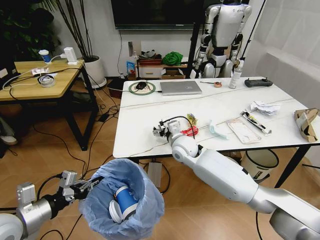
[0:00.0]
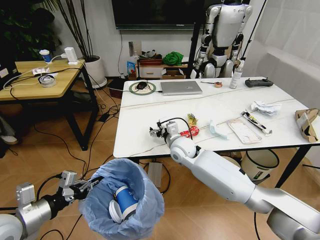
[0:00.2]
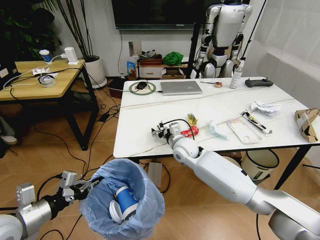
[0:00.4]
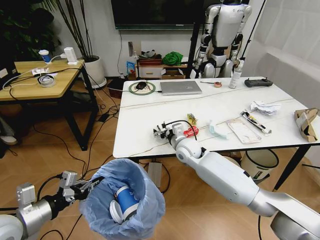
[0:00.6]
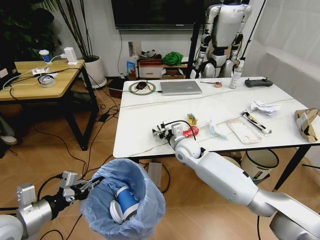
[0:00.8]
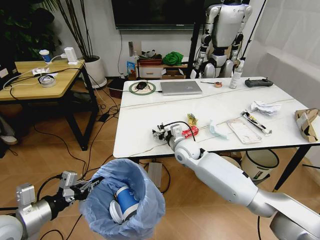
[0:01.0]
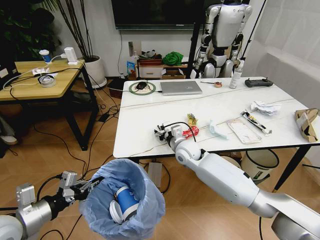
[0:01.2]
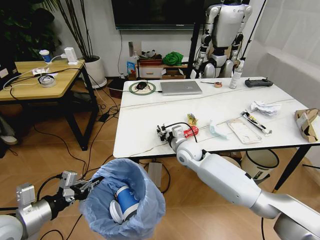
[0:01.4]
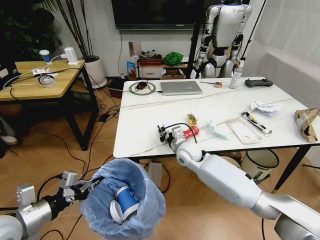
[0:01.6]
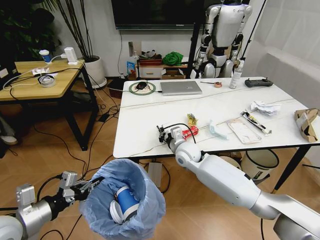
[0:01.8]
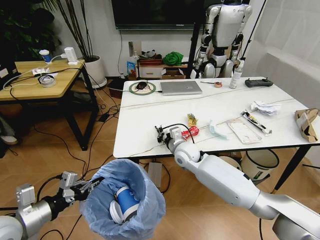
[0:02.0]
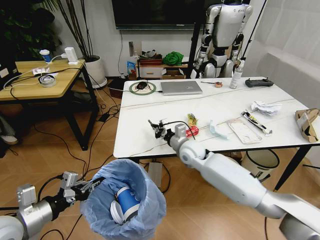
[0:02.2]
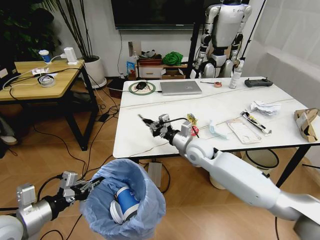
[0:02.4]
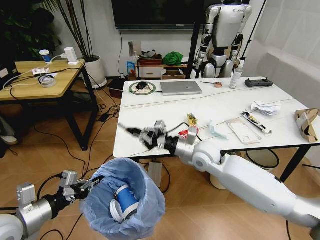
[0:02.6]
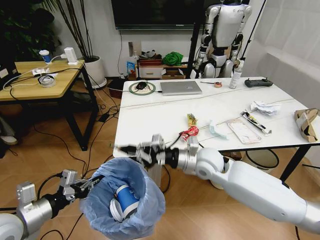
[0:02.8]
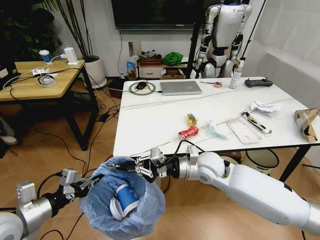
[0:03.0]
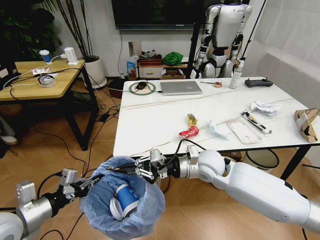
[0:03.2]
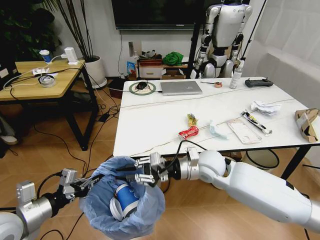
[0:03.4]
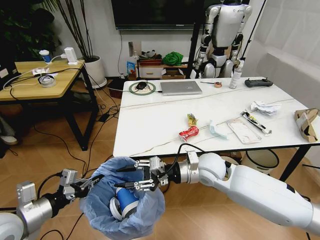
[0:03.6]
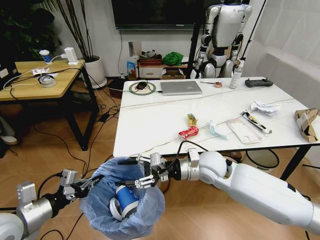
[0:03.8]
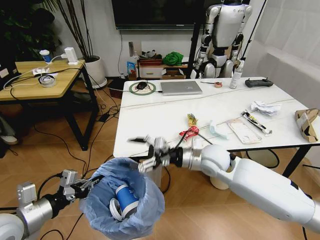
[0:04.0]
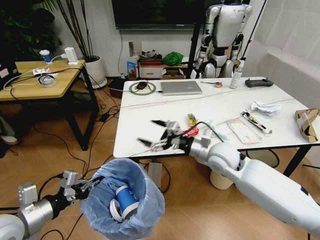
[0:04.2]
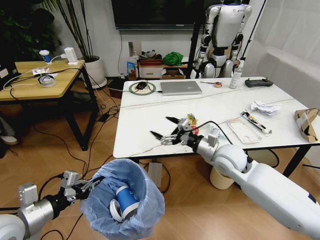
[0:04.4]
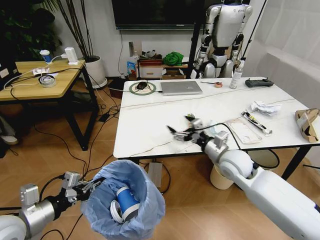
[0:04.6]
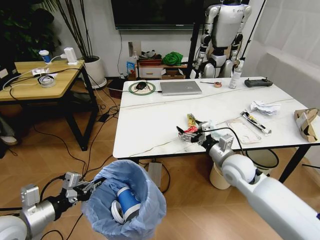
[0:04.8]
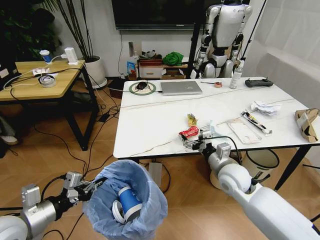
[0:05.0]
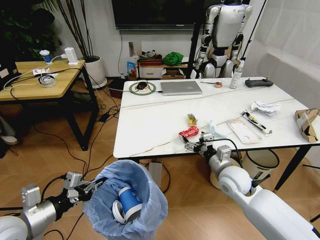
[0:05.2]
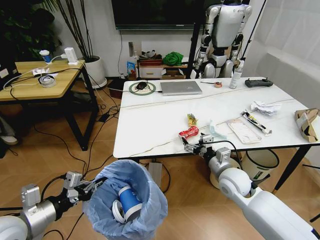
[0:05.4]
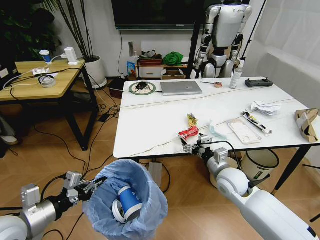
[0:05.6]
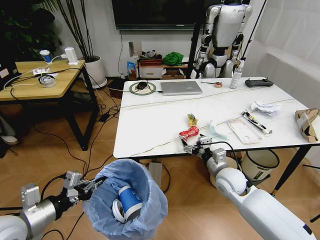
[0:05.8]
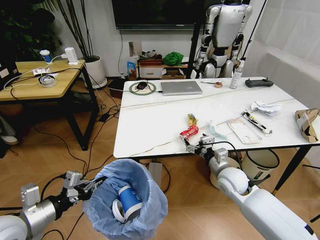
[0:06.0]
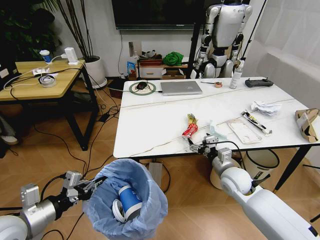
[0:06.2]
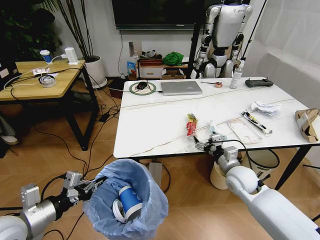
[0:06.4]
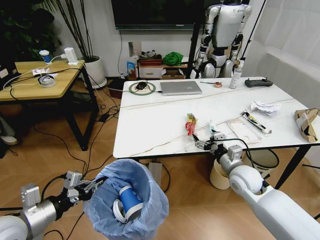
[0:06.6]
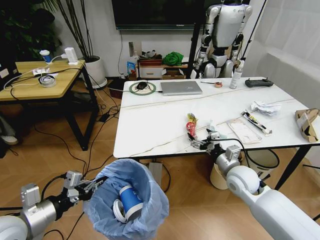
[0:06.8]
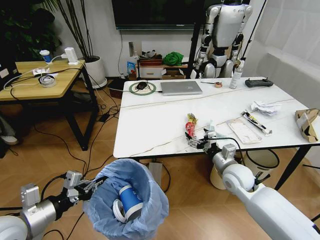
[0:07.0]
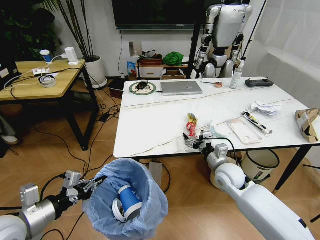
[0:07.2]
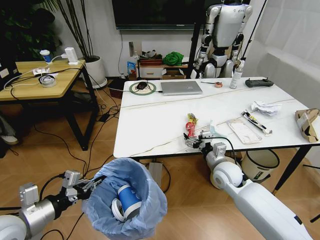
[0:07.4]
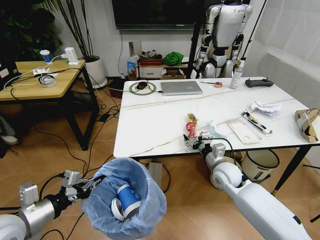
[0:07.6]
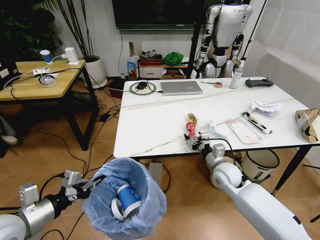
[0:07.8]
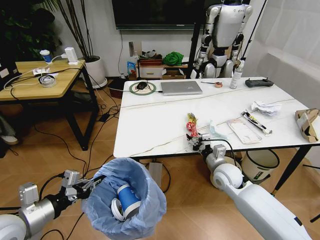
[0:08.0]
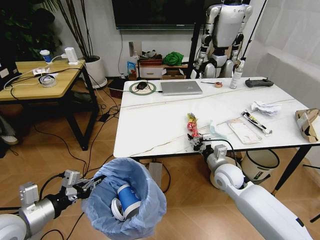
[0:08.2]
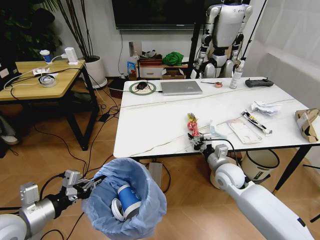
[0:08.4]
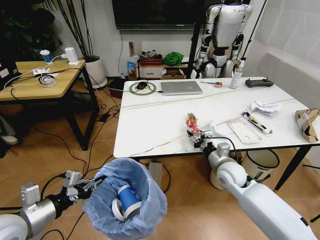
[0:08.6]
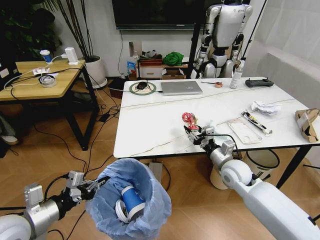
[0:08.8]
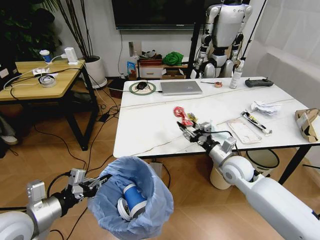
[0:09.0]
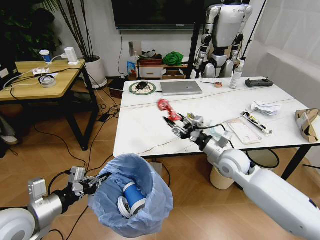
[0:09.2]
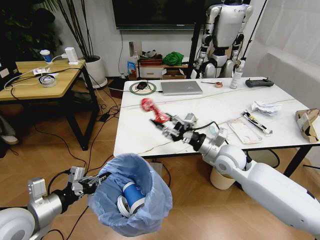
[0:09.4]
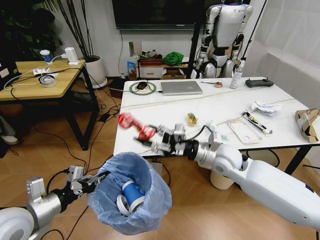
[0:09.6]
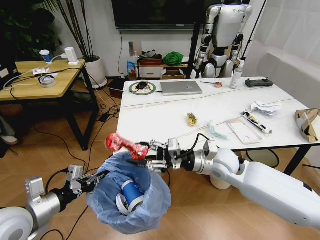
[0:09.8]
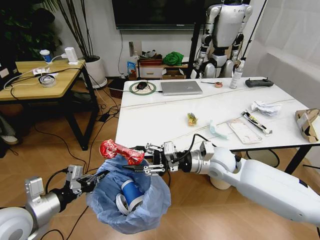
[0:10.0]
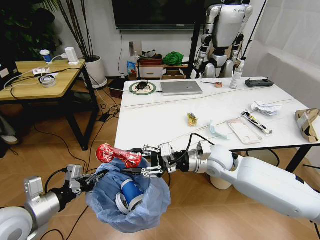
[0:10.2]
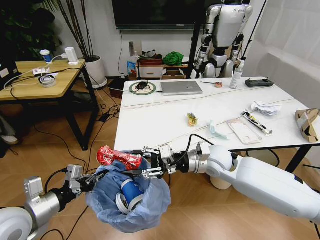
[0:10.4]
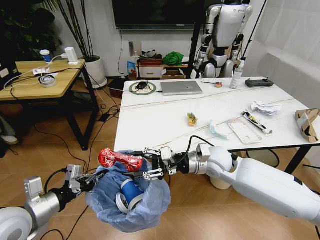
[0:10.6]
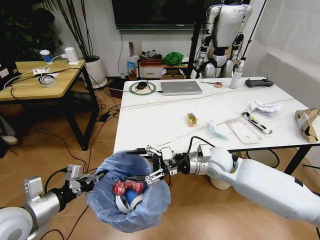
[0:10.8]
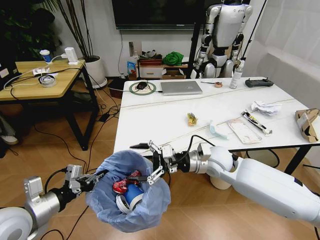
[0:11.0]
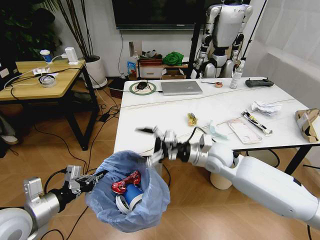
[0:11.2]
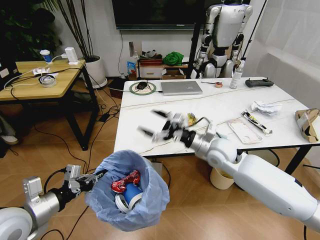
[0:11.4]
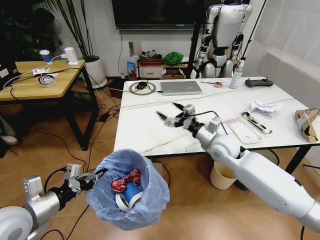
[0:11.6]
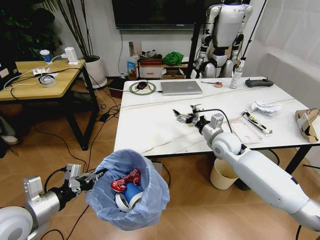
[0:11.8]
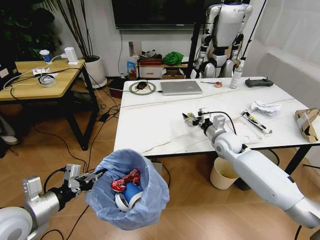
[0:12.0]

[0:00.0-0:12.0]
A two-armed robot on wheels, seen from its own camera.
Task of the whole recording: Pick up the trash bin and place the trash from the table into it.
0:00.0 to 0:01.6: The right gripper closes.
0:01.6 to 0:03.0: The right gripper is displaced backward by about 10 cm.
0:03.0 to 0:04.4: The right gripper heads to the right, covering some 5 cm, and opens its fingers.
0:04.4 to 0:06.0: The right gripper heads downward, covering approximately 10 cm.
0:06.0 to 0:07.6: There are only small adjustments of the grippers.
0:07.6 to 0:09.0: The right gripper closes.
0:09.0 to 0:10.4: The right gripper goes approximately 10 cm to the left and upward.
0:10.4 to 0:12.0: The right gripper goes about 15 cm forward and to the right, and opens.

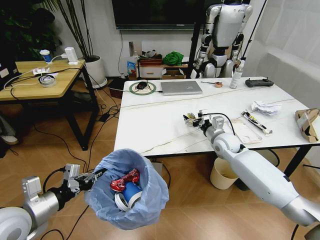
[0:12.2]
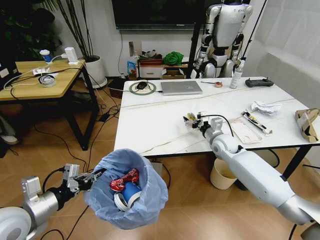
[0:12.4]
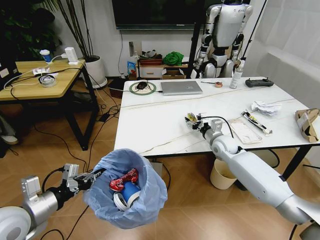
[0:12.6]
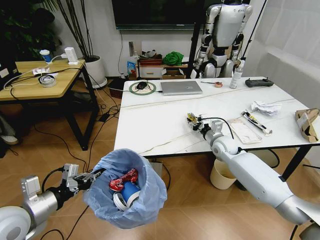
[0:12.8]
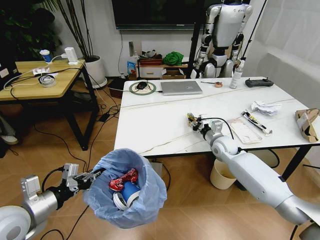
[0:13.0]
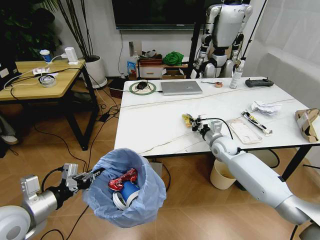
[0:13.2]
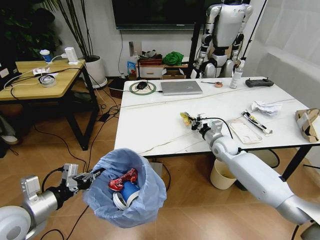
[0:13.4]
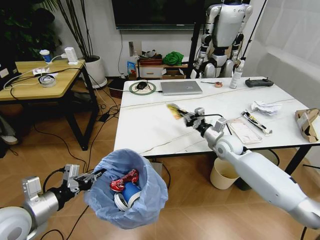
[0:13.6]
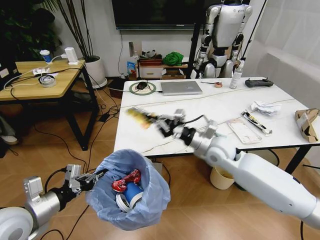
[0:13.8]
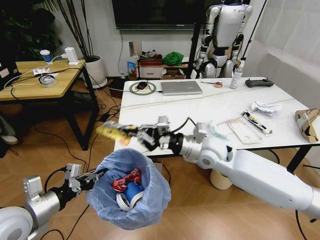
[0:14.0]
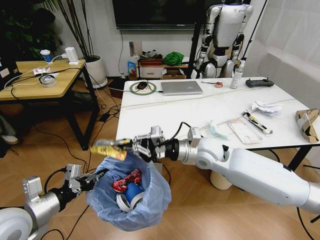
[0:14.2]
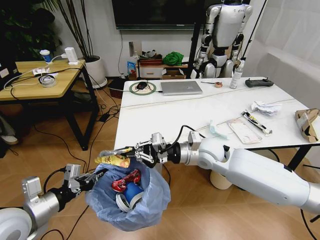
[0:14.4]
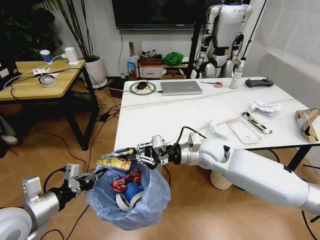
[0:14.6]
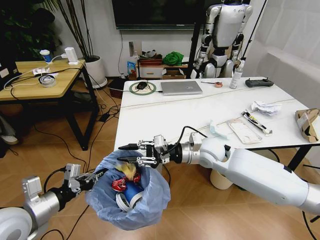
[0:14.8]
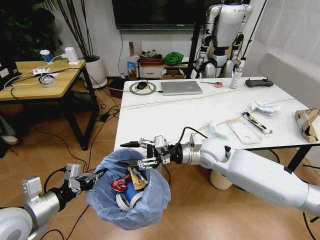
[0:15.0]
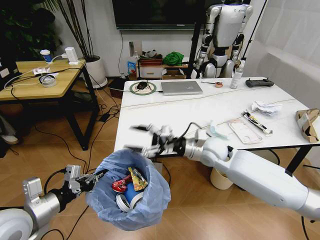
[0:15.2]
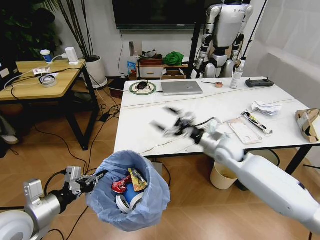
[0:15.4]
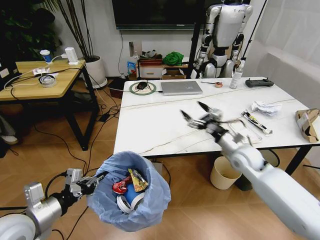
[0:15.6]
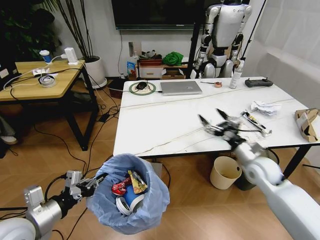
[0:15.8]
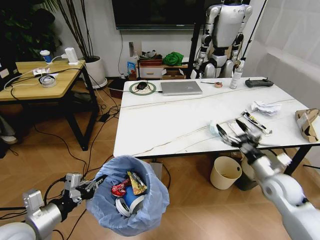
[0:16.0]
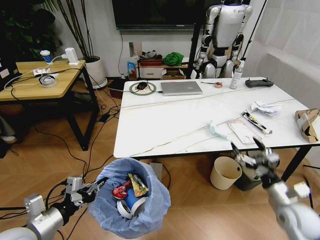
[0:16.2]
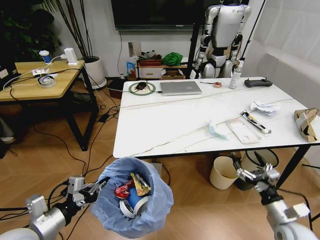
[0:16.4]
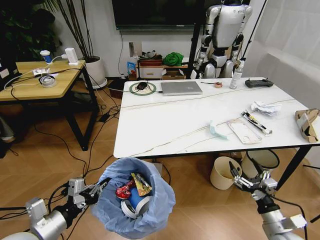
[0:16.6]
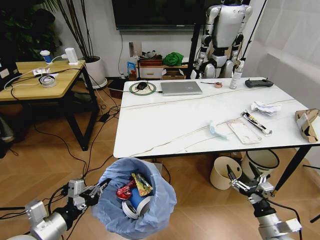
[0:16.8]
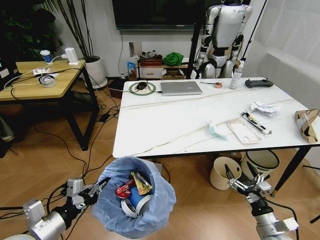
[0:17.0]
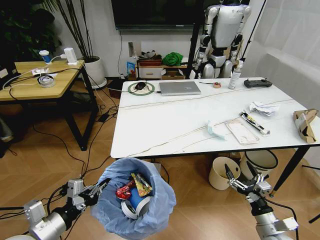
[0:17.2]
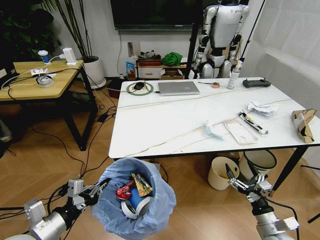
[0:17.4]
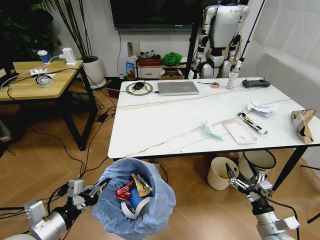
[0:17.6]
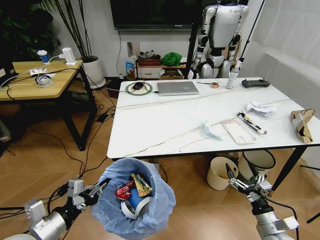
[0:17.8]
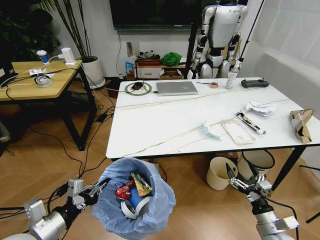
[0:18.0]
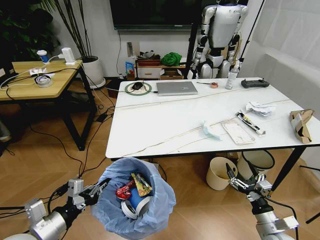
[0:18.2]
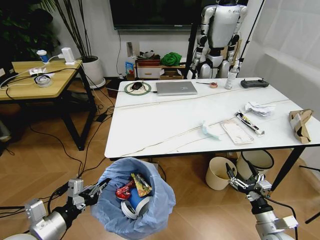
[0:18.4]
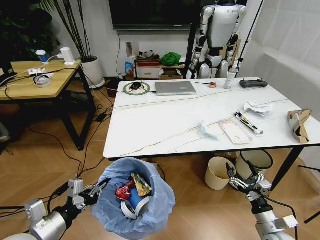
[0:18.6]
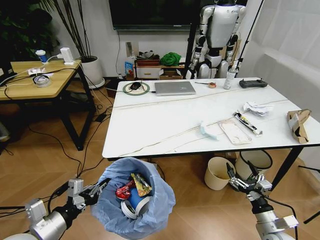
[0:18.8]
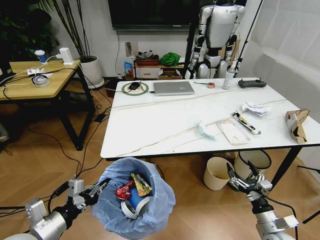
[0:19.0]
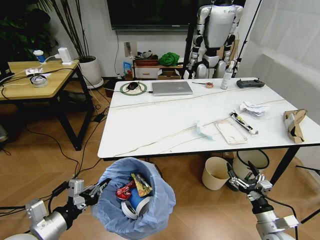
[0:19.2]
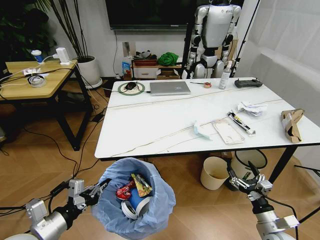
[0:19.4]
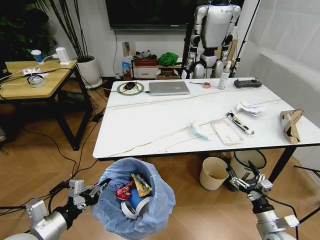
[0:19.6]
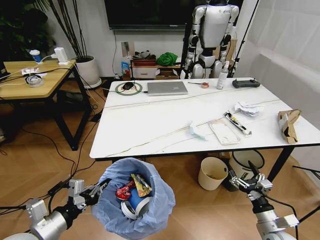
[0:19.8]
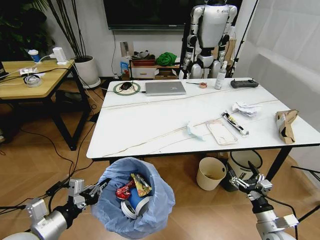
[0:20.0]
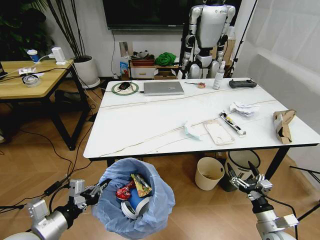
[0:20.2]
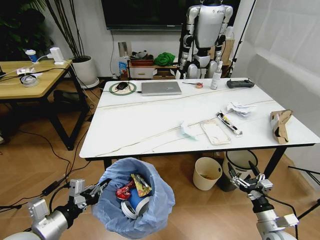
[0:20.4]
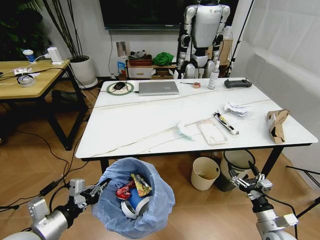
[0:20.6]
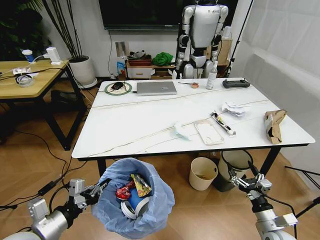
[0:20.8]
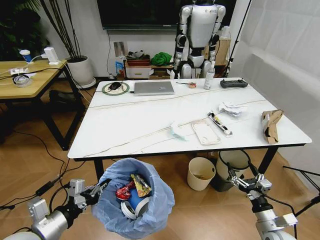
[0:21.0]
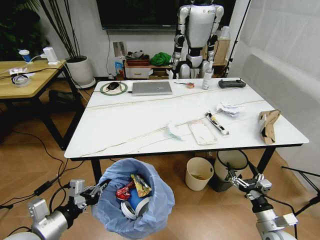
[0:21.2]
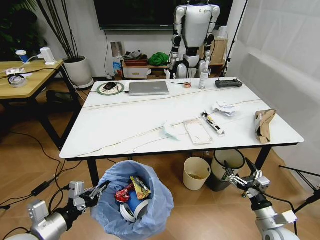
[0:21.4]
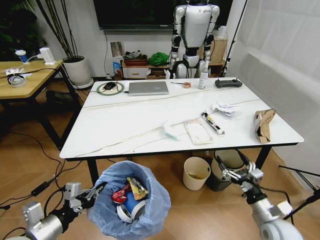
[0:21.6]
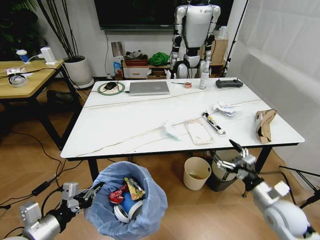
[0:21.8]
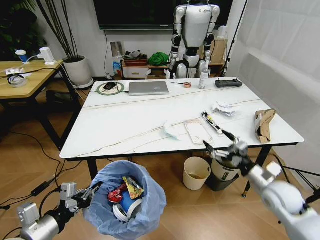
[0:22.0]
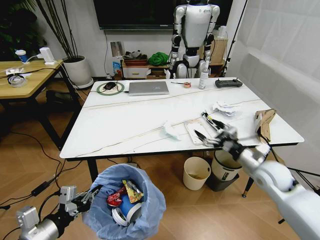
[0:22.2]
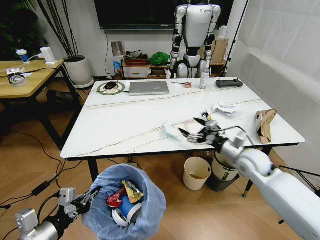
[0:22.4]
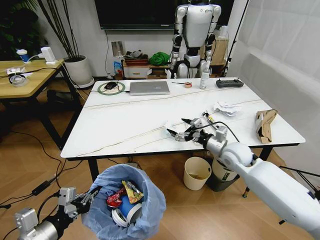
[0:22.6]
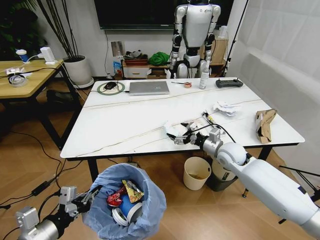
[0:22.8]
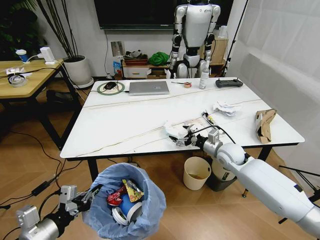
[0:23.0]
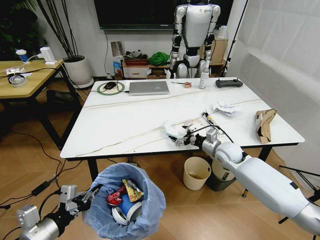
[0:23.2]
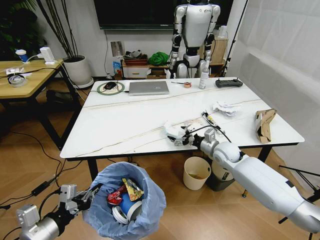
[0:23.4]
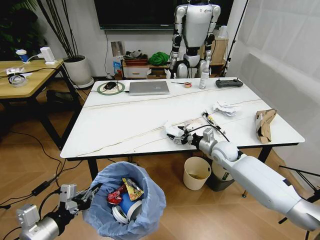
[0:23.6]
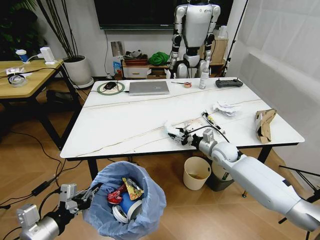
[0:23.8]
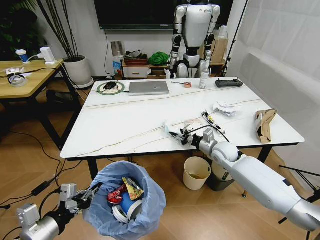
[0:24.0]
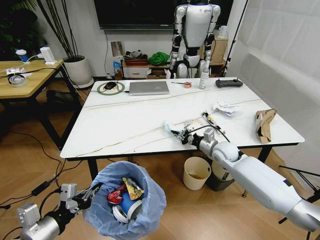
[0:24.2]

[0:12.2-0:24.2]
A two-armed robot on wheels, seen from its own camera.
Task of the whole recording: Pick up the trash bin and place the trash from the table into it.
0:12.2 to 0:13.8: The right gripper heads backward and upward, covering approximately 10 cm, and closes.
0:13.8 to 0:15.2: The right gripper opens.
0:15.2 to 0:16.6: The right gripper shifts some 35 cm backward, to the right and downward, while the left gripper shifts by some 5 cm.
0:21.2 to 0:22.6: The right gripper travels forward and upward by approximately 25 cm.
0:22.6 to 0:24.2: The right gripper is displaced forward and downward by roughly 10 cm, and closes.
